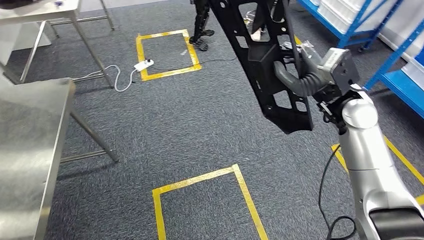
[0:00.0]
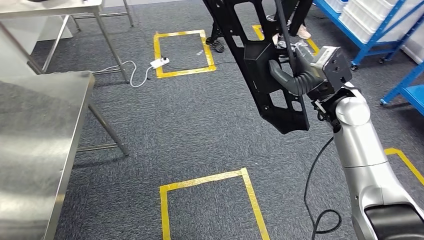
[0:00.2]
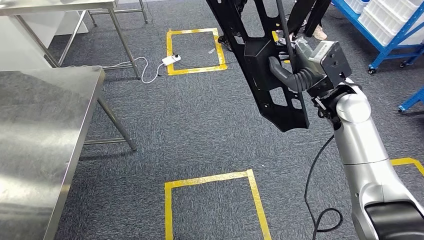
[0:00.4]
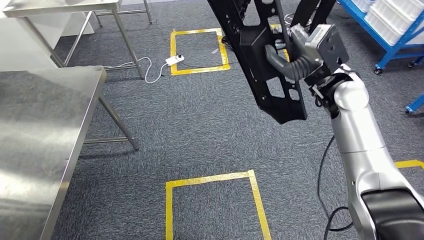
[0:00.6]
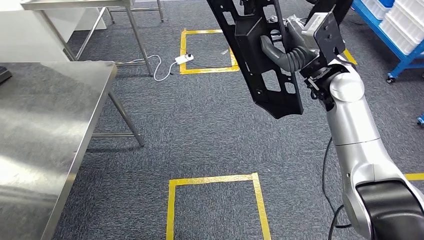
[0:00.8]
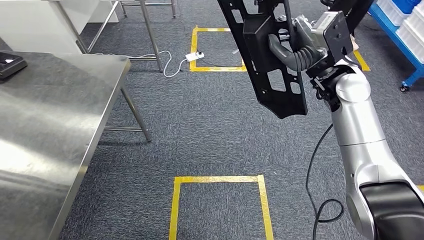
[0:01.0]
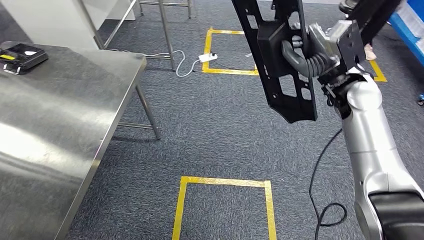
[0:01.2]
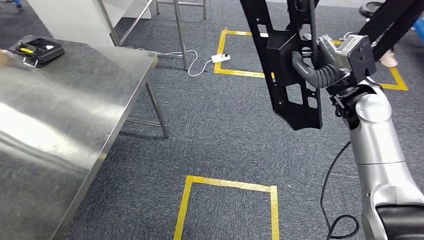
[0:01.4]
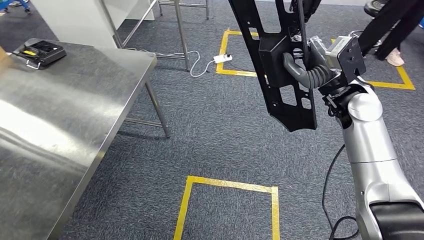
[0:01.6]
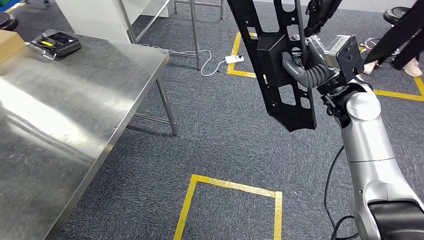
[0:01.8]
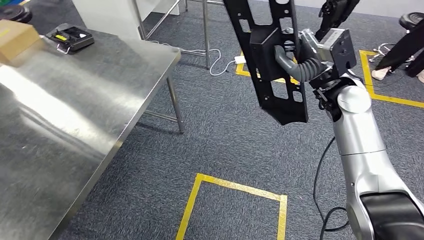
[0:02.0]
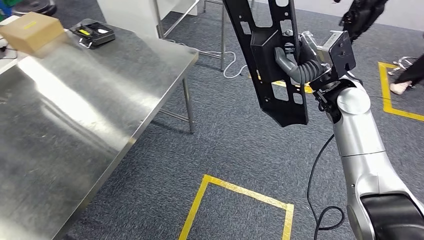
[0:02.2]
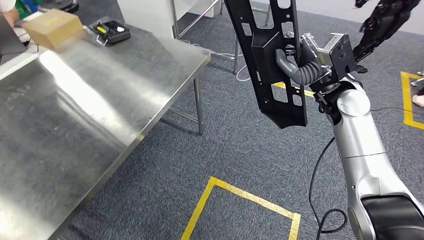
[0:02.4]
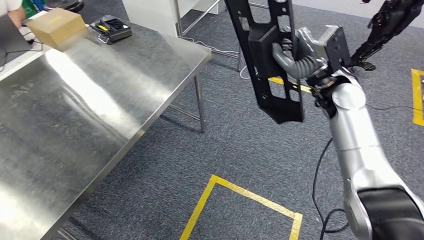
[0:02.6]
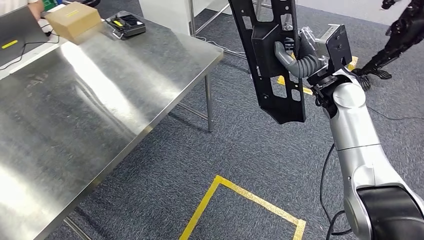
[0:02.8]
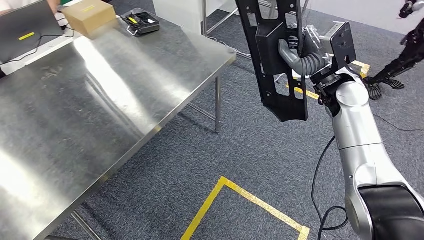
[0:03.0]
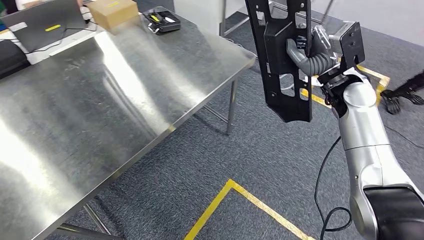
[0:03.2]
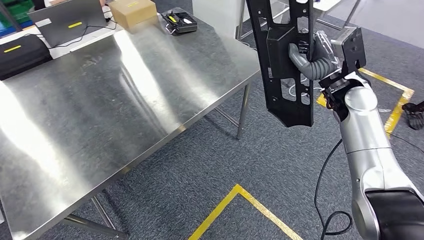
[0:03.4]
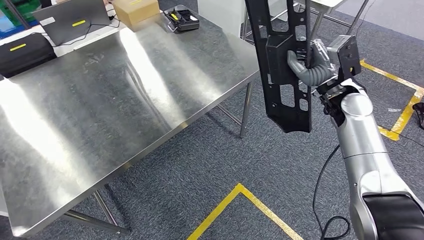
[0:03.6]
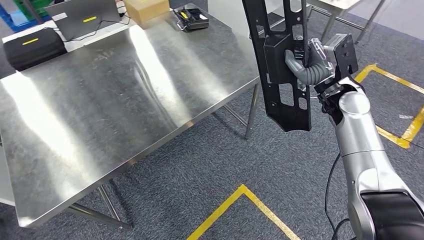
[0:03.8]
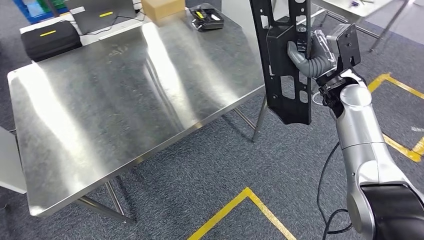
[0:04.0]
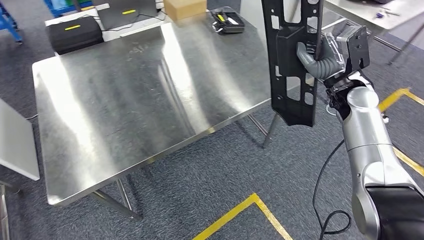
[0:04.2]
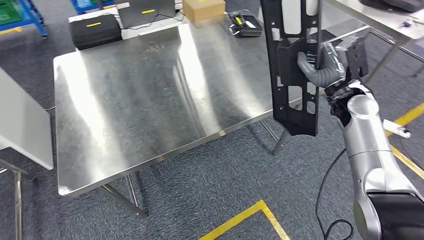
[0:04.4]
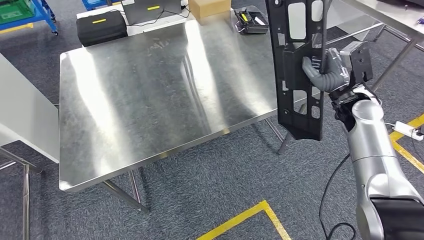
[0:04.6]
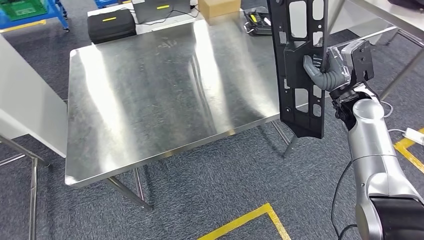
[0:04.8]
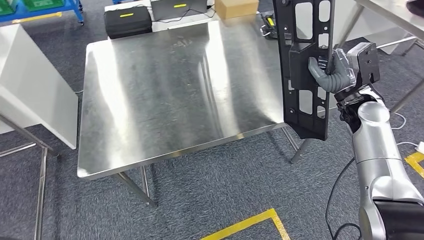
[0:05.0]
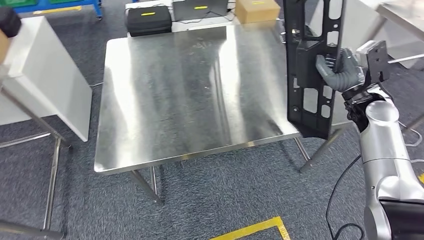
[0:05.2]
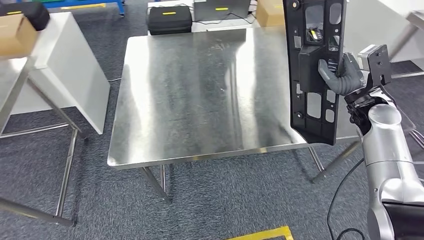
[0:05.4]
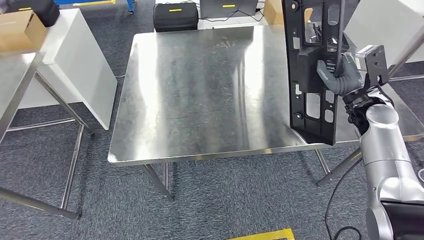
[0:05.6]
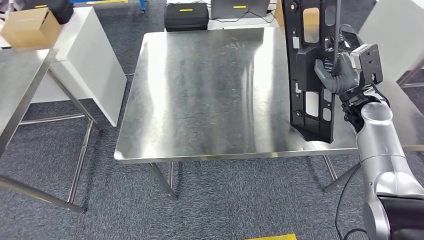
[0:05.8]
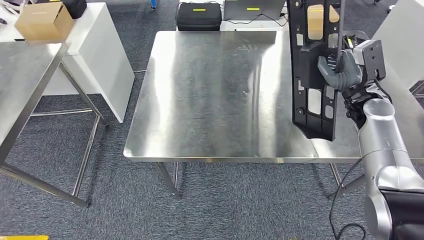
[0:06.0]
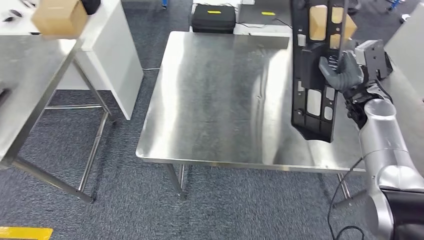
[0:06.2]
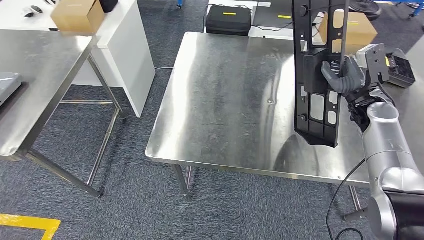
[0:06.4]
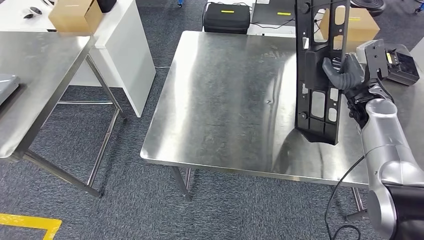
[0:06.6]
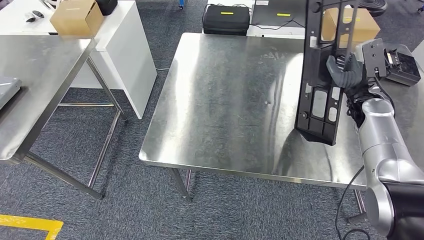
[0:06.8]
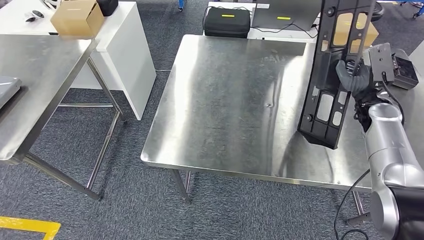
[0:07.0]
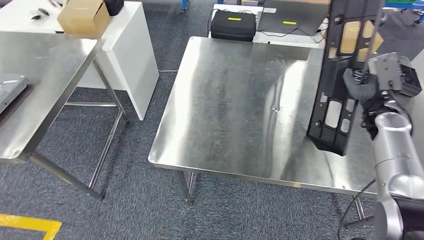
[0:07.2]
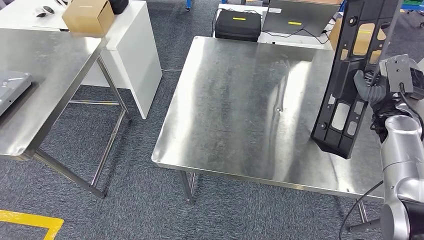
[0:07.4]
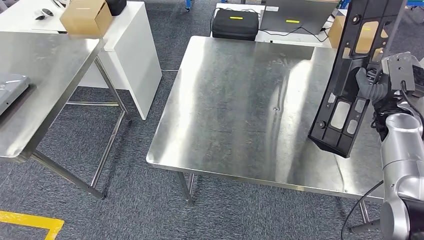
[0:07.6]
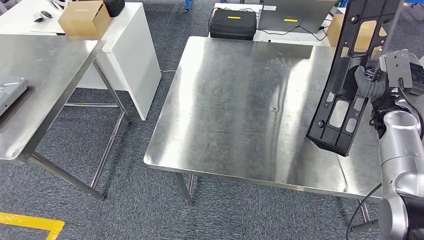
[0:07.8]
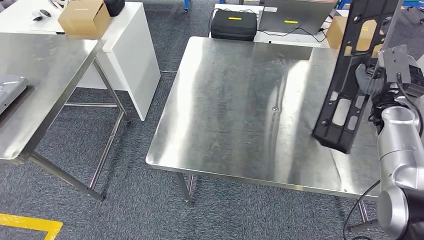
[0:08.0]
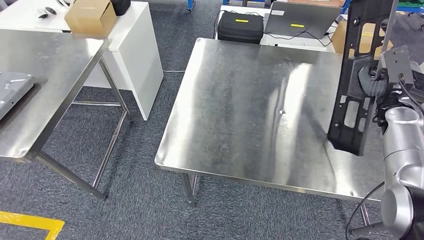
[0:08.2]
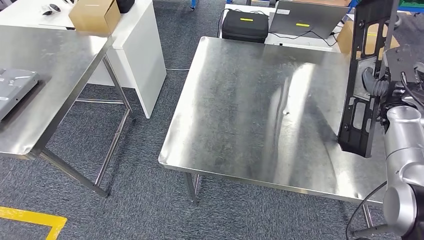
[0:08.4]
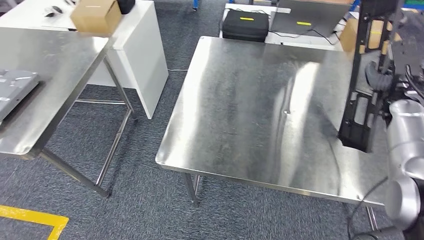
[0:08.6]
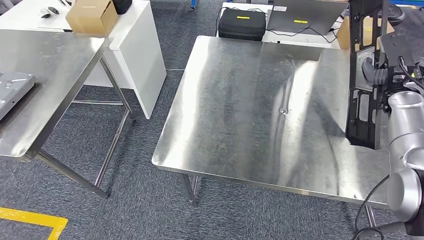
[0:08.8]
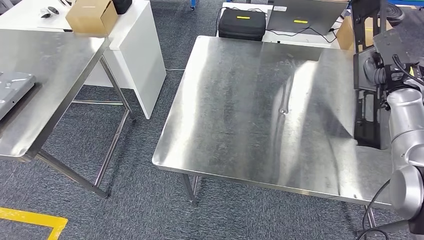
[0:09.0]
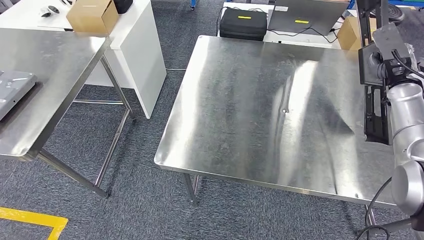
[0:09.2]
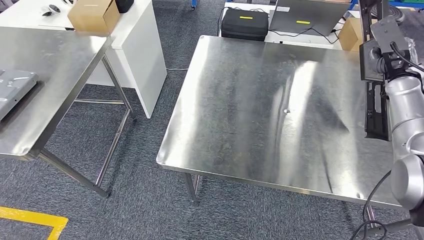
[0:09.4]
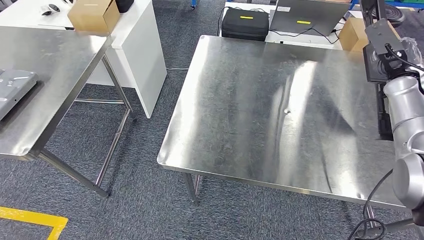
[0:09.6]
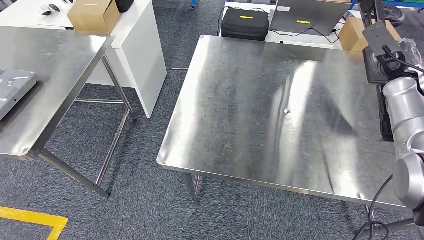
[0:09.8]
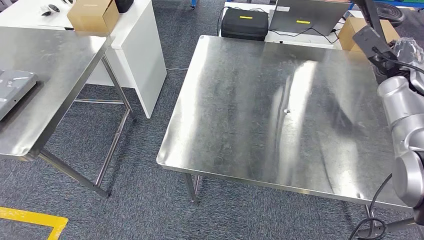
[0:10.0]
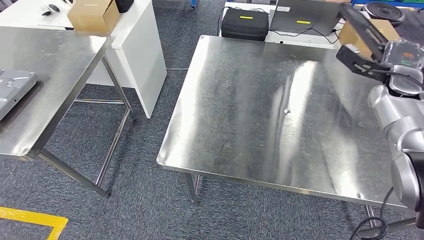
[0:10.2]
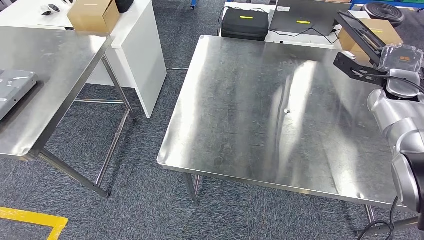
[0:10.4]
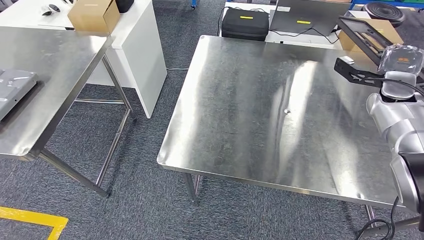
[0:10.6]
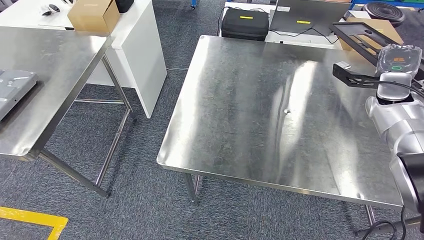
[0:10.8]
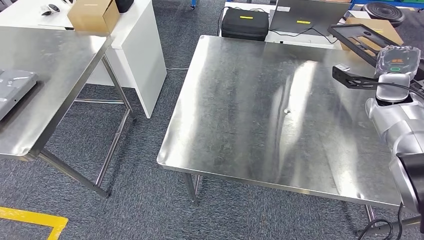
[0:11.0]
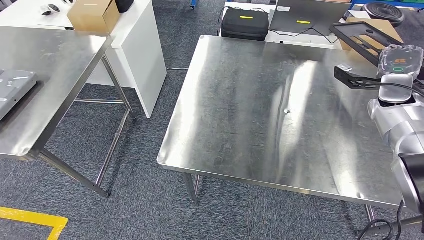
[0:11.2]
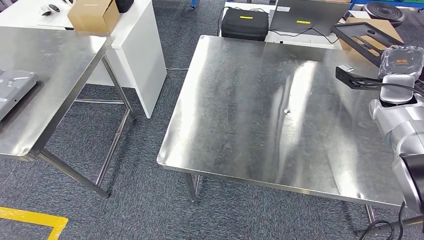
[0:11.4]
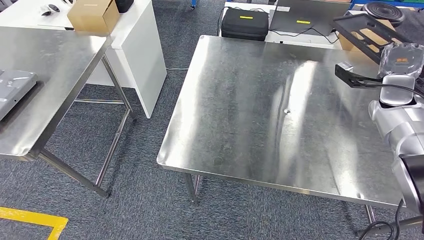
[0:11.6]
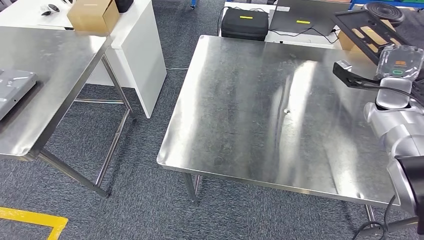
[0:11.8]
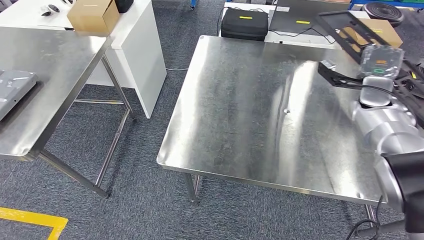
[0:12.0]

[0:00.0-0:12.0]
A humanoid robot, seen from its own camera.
Step, 0:00.0 to 0:06.4: Move the large material to the workbench.

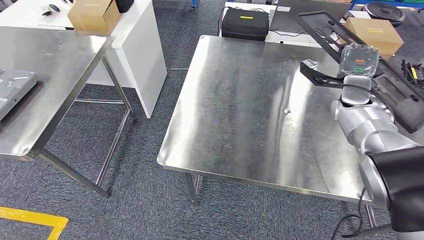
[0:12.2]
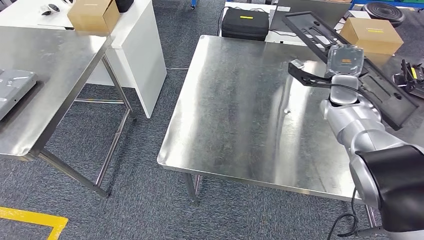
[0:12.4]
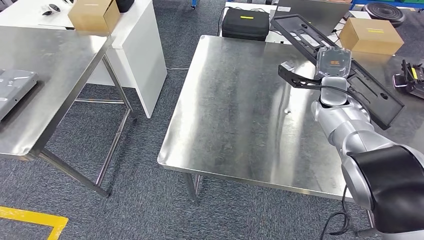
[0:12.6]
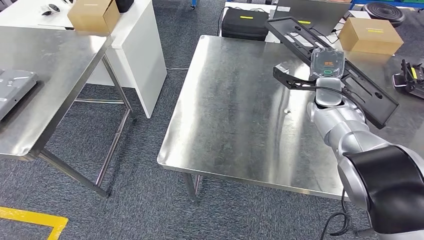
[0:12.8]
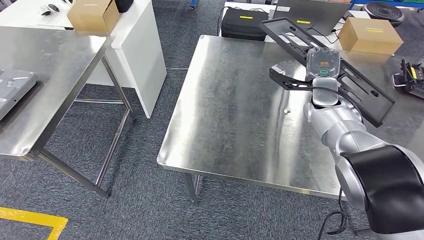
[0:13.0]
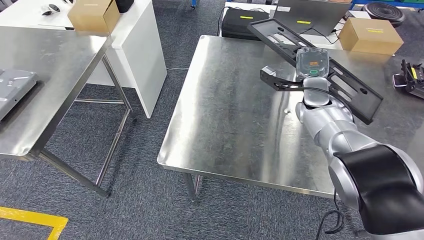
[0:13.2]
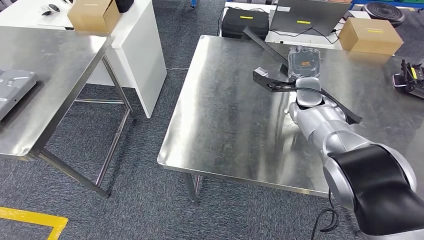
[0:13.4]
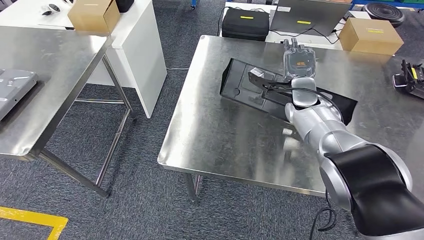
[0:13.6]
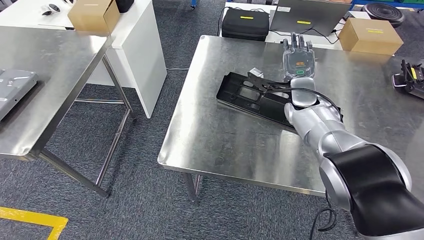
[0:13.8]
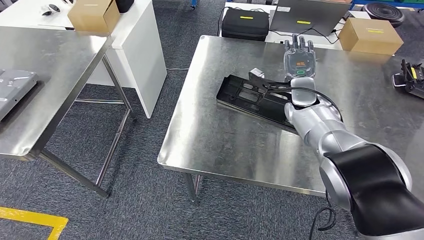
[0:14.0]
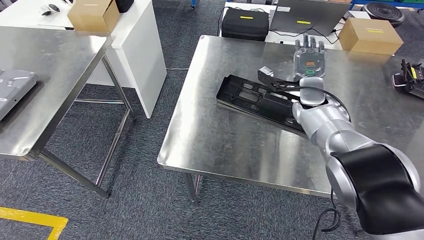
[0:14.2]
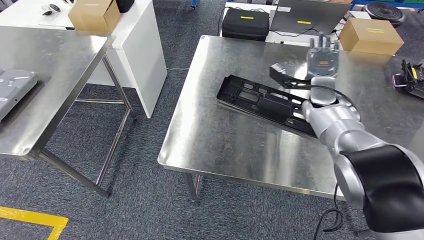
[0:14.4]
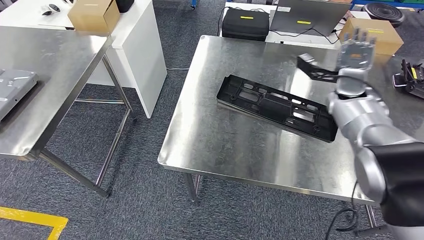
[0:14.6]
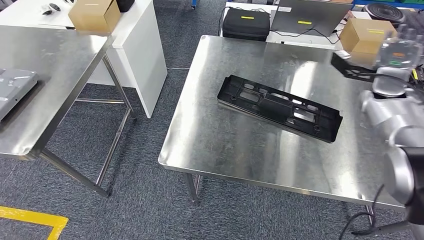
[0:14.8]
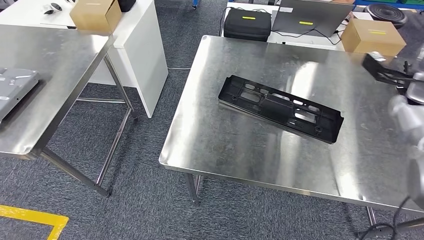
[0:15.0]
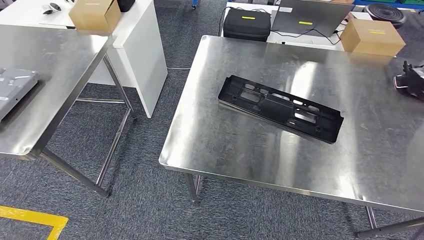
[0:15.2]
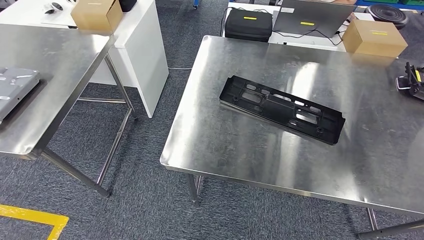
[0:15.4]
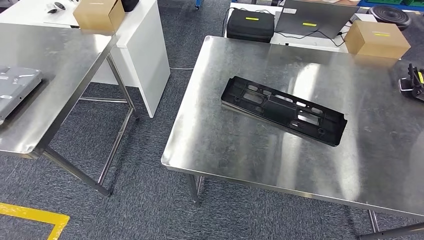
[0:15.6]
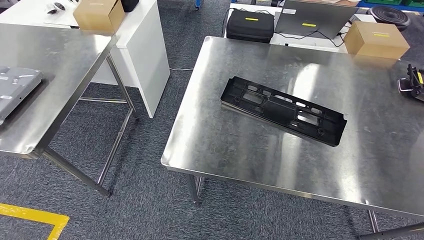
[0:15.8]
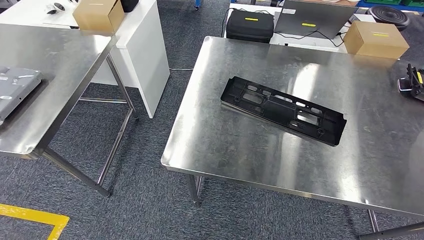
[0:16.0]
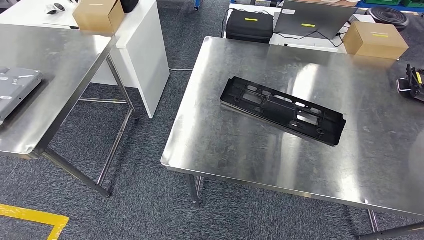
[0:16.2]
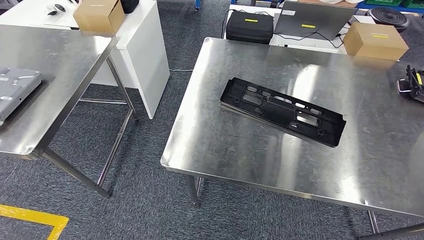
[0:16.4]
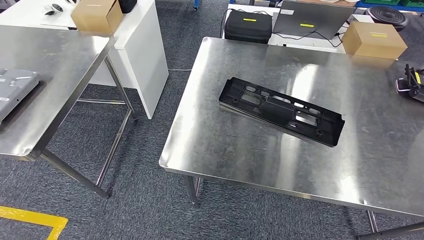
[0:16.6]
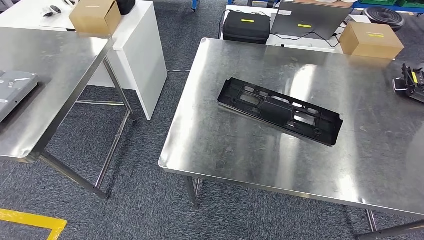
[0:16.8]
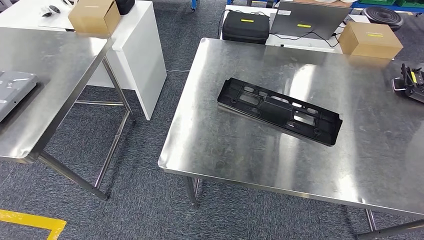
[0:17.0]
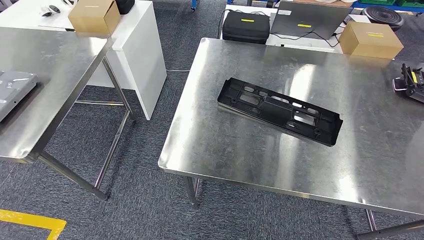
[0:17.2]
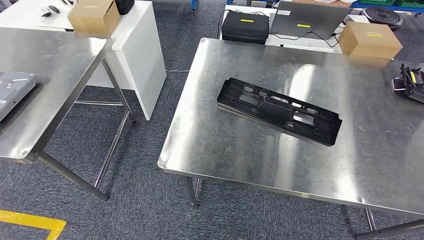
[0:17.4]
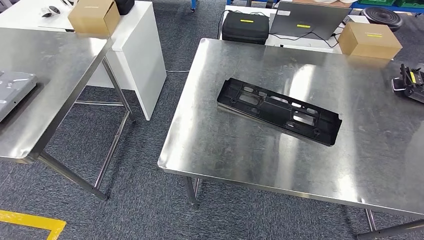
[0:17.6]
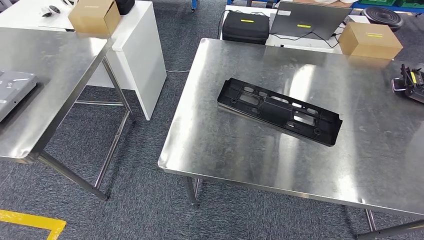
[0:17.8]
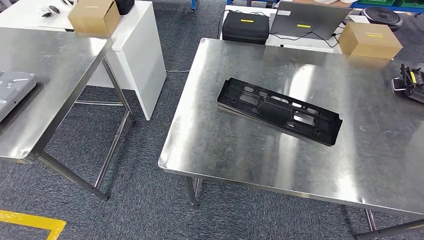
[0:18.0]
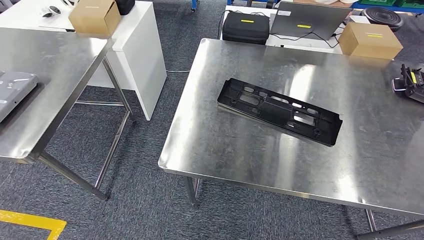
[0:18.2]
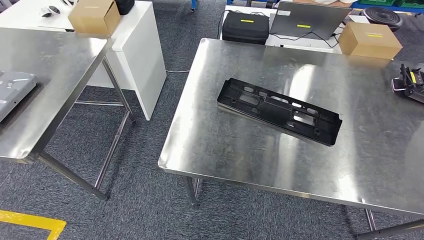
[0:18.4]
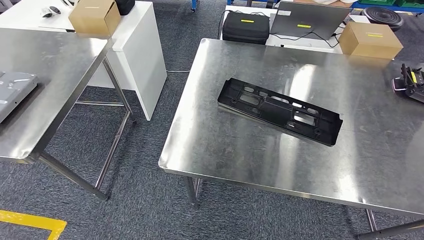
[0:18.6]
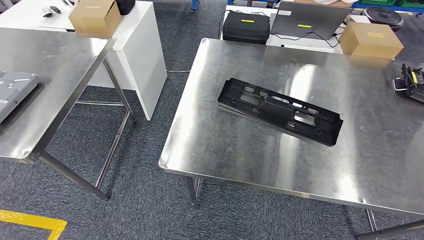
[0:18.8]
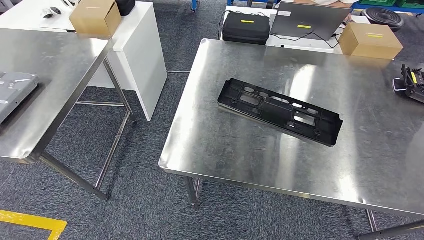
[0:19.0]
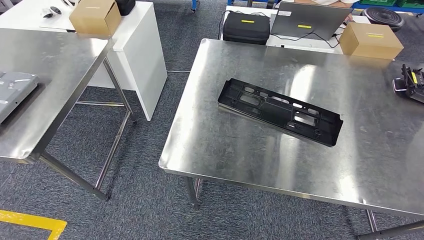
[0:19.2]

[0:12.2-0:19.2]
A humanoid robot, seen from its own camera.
0:15.0 to 0:16.4: The right hand heads backward and to the right, covering some 40 cm.
0:16.4 to 0:17.8: The right hand is displaced to the left and downward by about 35 cm.
0:17.8 to 0:19.2: The left hand travels to the left by some 5 cm. The right hand shifts about 15 cm to the left and downward.
